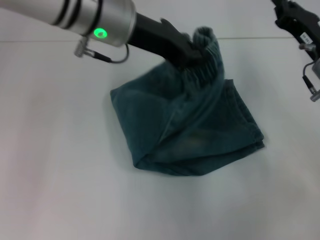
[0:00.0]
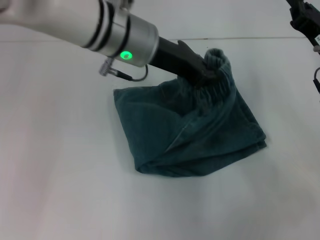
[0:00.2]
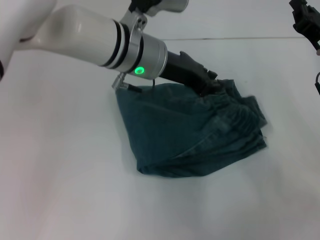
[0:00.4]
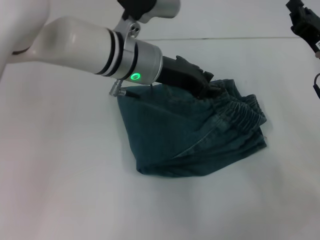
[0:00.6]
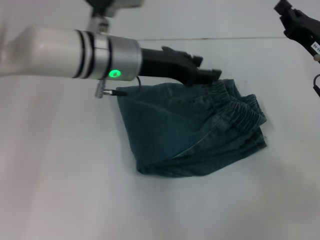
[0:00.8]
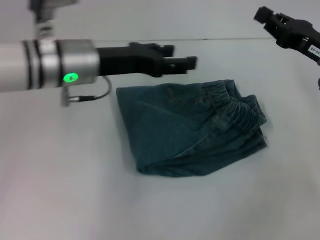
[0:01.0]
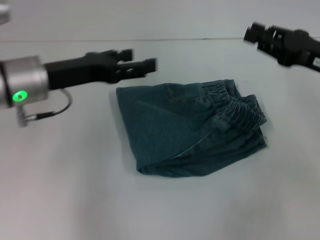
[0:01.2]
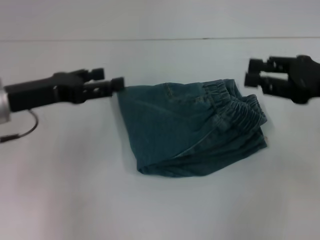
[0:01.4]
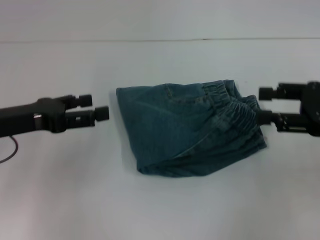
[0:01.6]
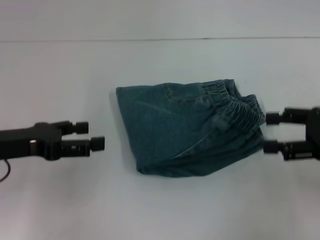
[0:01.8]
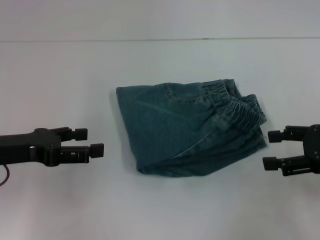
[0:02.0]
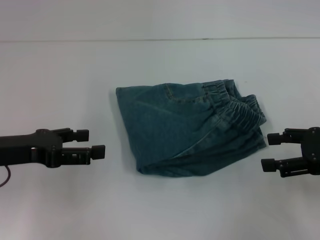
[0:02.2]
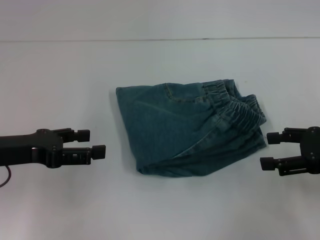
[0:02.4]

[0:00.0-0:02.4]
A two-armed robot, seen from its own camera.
Step, 0:00.0 to 0:01.6: Fold to the right with your left hand.
0:00.0 to 0:01.2: The right gripper moves approximately 5 cm; the left gripper shifts approximately 15 cm to the left and downward, and opens its fingers.
0:01.2 to 0:02.4: The left gripper travels to the left and backward by roughly 10 cm, while the right gripper shifts some 5 cm backward, and opens its fingers.

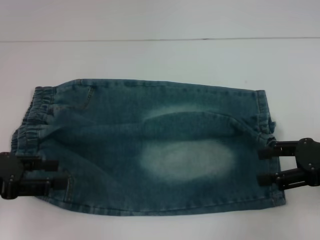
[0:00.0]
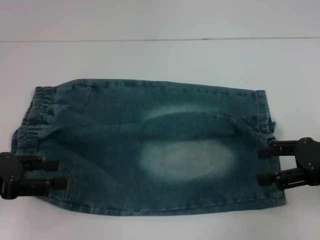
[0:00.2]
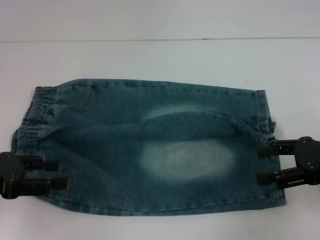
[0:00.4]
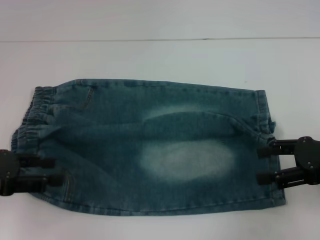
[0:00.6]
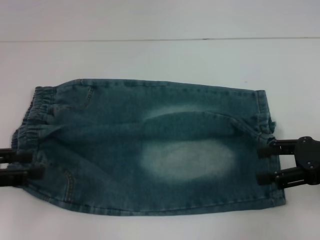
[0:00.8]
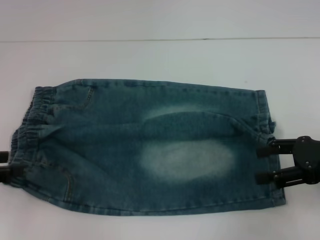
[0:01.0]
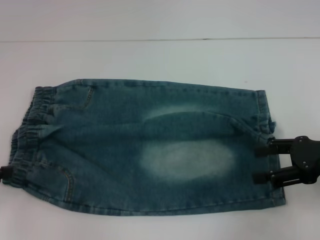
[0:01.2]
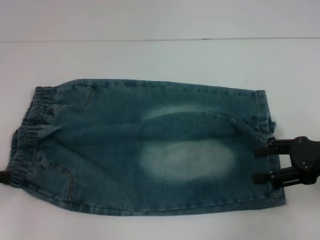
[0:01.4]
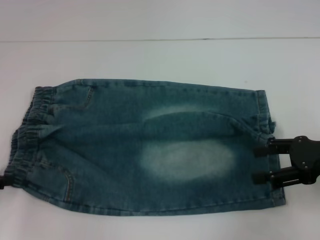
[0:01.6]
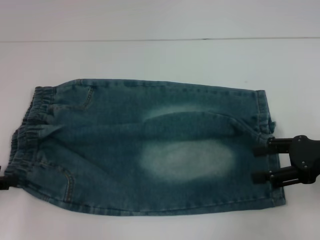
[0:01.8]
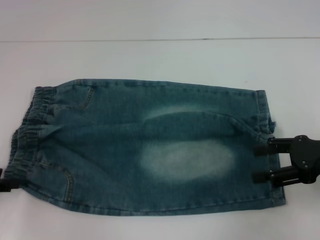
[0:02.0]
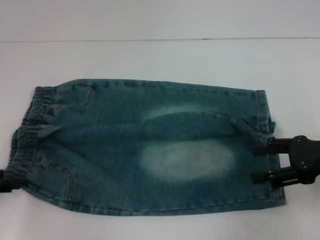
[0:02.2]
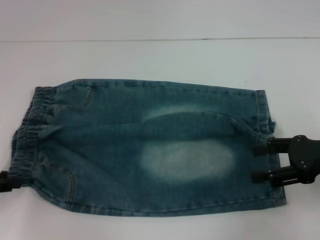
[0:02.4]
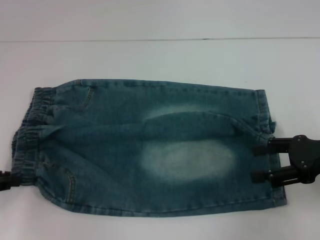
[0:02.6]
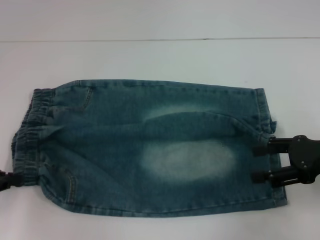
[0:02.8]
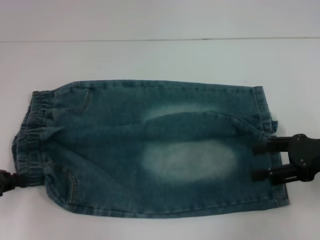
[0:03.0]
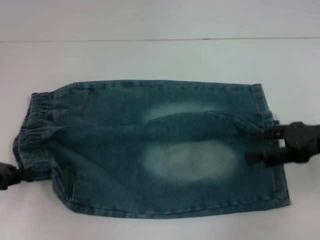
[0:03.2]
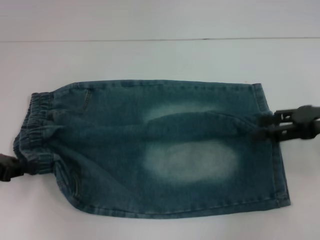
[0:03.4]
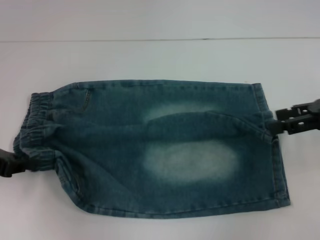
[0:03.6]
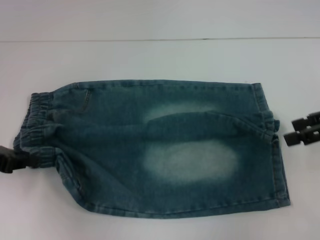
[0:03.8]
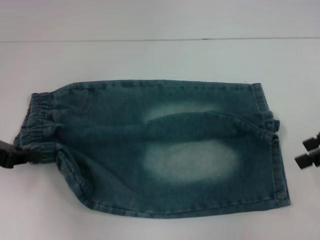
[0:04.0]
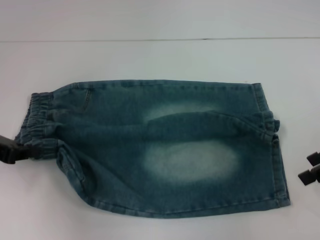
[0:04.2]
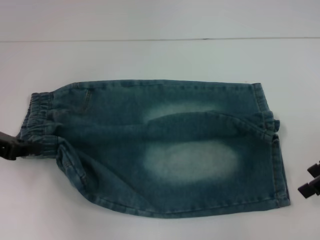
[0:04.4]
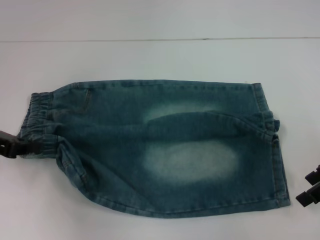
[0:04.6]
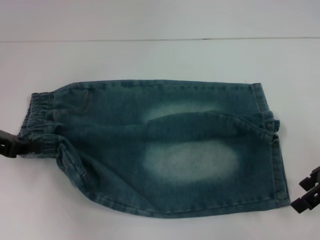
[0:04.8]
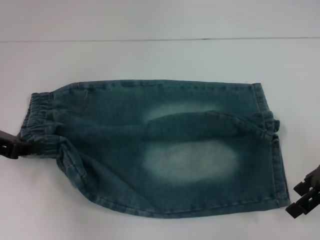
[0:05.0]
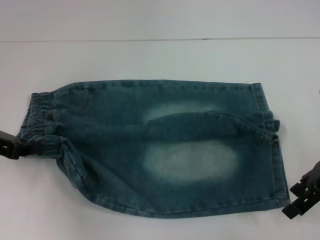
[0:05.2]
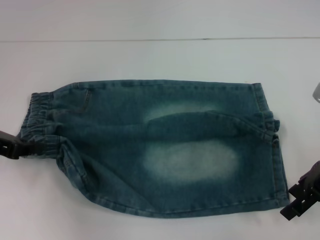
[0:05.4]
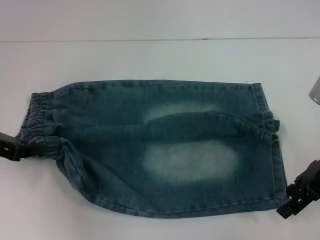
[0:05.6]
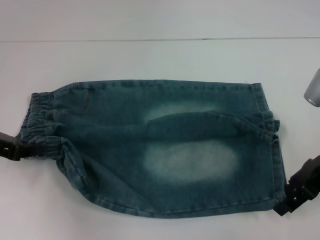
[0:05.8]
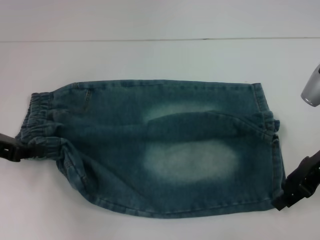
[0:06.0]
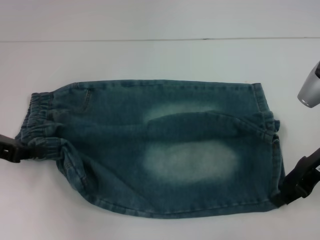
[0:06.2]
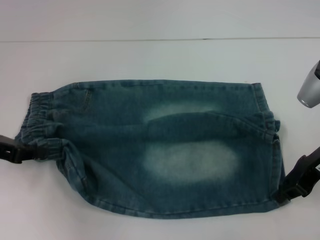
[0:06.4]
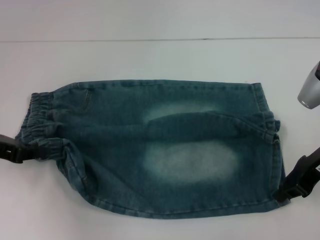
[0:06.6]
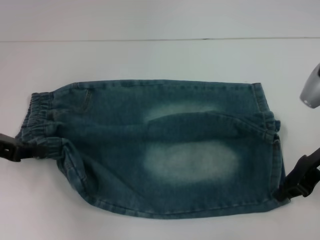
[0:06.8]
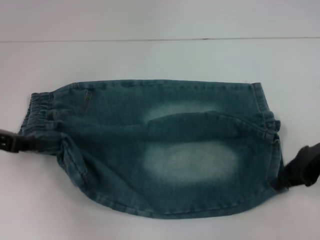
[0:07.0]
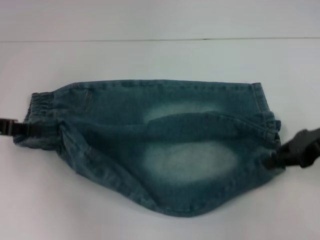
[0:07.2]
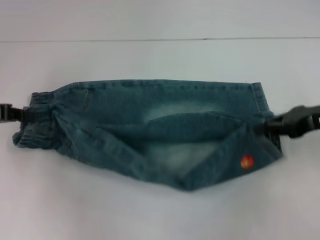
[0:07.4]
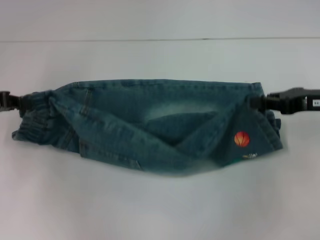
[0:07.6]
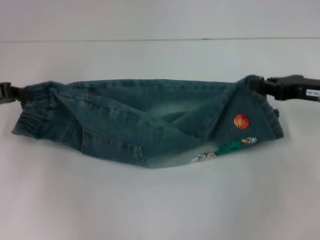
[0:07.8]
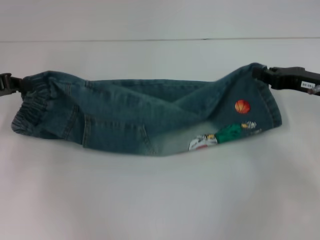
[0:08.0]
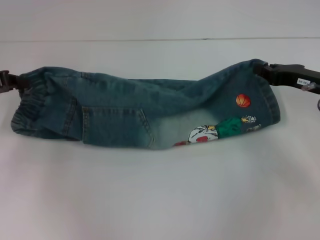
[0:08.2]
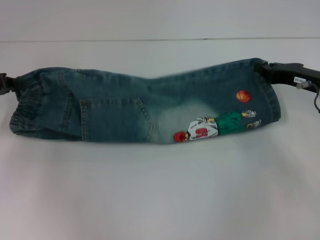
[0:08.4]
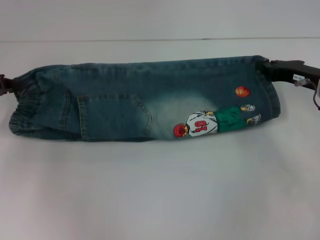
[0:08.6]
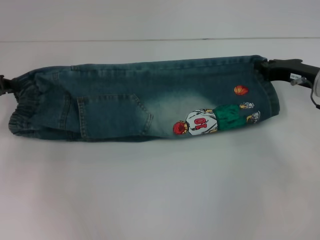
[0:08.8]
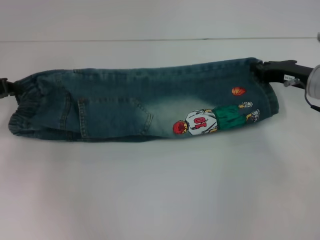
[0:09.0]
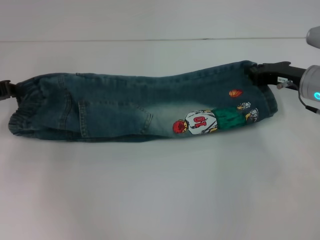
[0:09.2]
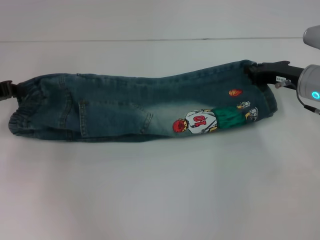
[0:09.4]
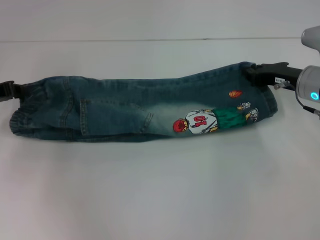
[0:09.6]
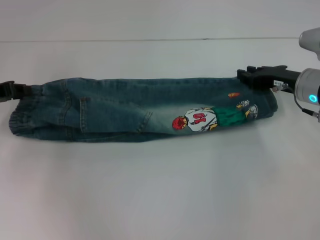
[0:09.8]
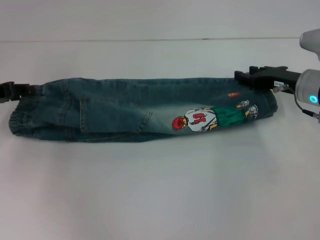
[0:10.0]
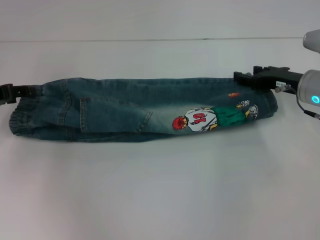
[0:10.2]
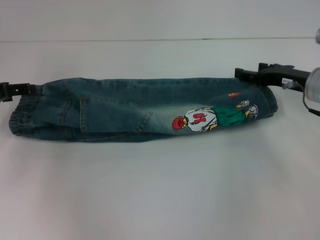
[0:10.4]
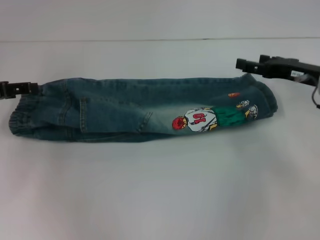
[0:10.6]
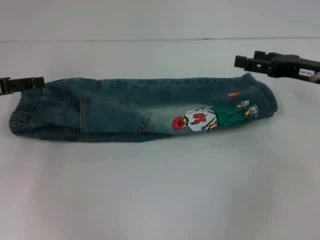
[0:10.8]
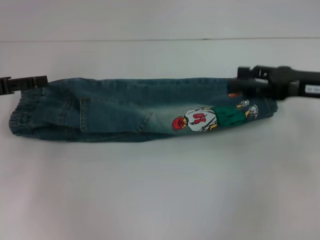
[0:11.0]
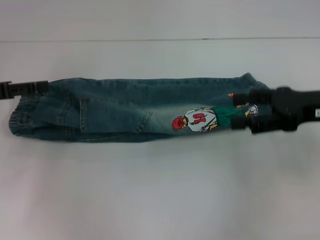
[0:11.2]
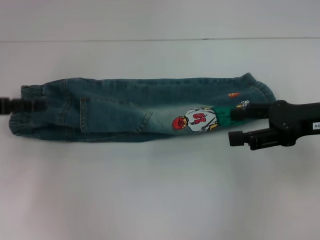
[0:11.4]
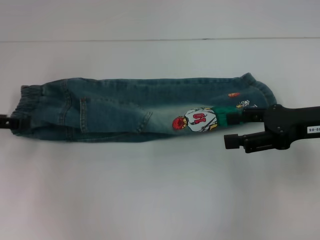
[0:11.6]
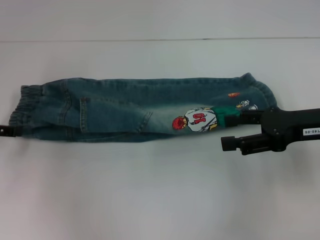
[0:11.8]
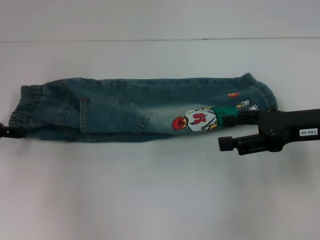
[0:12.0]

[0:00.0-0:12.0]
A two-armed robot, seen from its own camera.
Step, 0:00.0 to 0:02.8: Hold the lower left waistband with your left hand.
Step, 0:03.0 to 0:06.6: Grab the lower right pant leg with your right hand.
Step, 0:07.0 to 0:09.8: Fold upward with your right hand.
0:00.0 to 0:01.6: The left gripper moves to the left, roughly 5 cm.
0:01.6 to 0:03.0: The left gripper closes its fingers.
0:03.0 to 0:04.4: The left gripper changes place by approximately 5 cm, while the right gripper ends up approximately 5 cm from where it was.
0:04.4 to 0:06.0: The right gripper shifts approximately 5 cm to the left.
0:06.0 to 0:07.6: The right gripper closes.
0:07.6 to 0:09.0: The right gripper changes place by roughly 5 cm.
0:09.0 to 0:10.4: The right gripper opens its fingers. Meanwhile the left gripper opens its fingers.
0:10.4 to 0:12.0: The right gripper moves backward, about 10 cm.

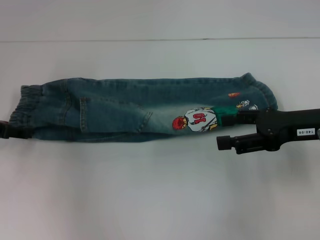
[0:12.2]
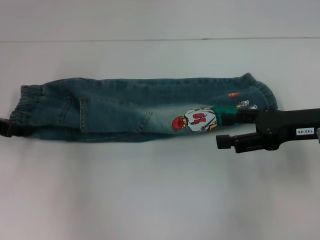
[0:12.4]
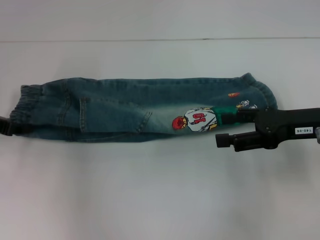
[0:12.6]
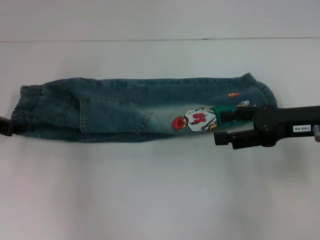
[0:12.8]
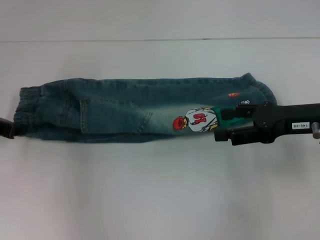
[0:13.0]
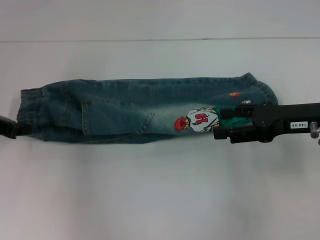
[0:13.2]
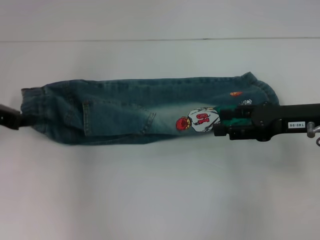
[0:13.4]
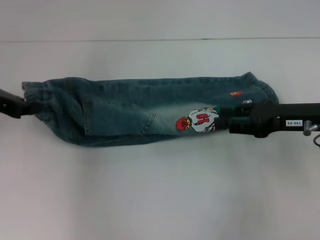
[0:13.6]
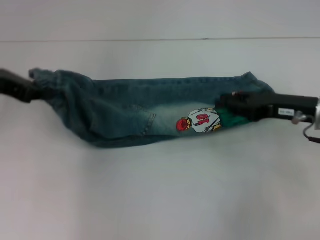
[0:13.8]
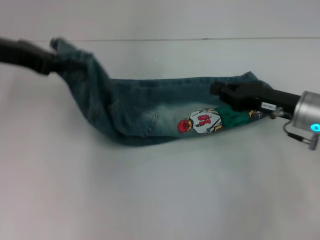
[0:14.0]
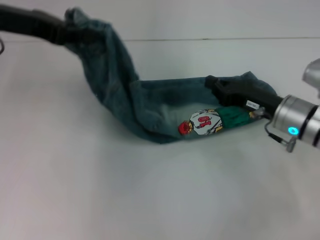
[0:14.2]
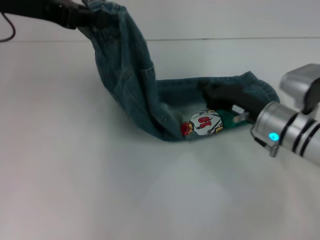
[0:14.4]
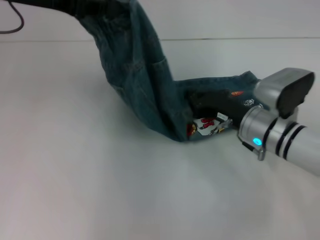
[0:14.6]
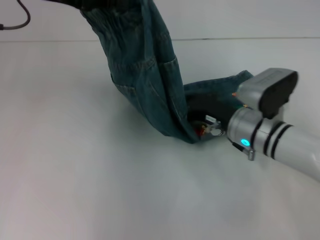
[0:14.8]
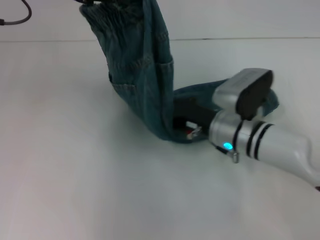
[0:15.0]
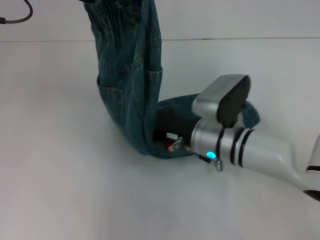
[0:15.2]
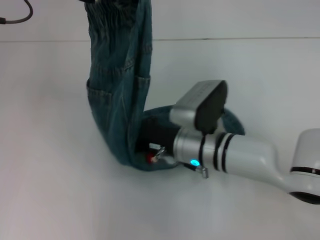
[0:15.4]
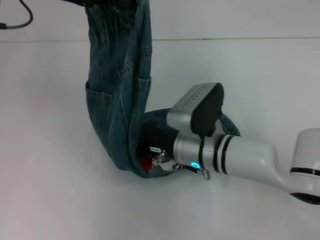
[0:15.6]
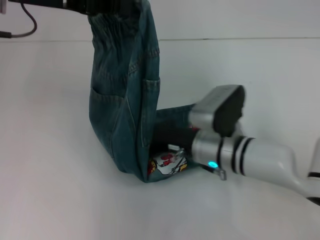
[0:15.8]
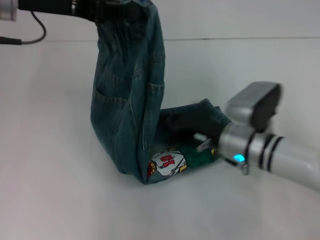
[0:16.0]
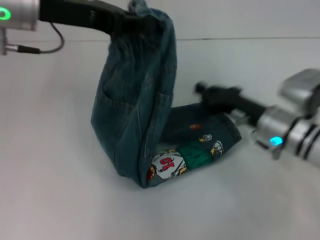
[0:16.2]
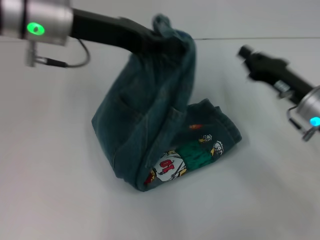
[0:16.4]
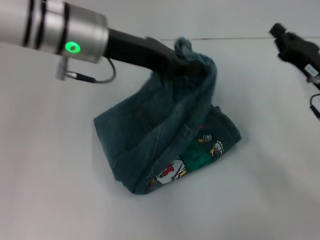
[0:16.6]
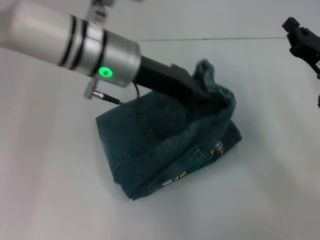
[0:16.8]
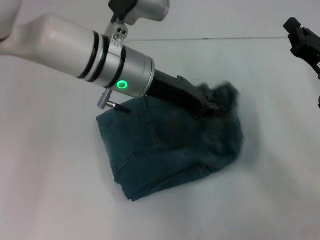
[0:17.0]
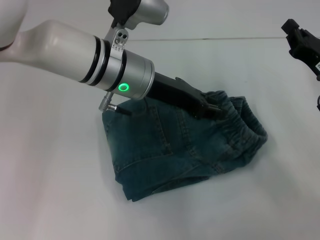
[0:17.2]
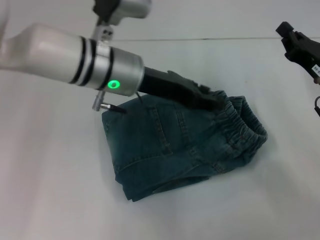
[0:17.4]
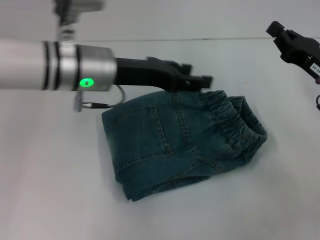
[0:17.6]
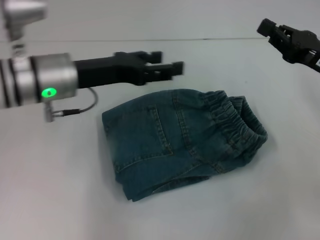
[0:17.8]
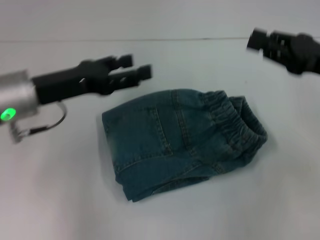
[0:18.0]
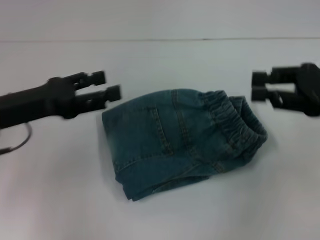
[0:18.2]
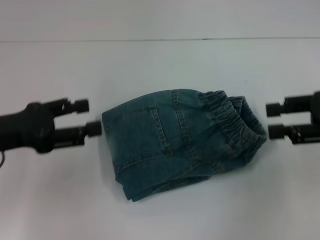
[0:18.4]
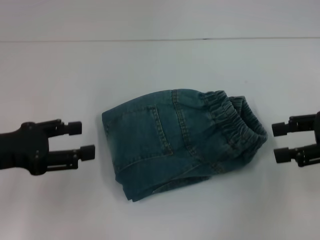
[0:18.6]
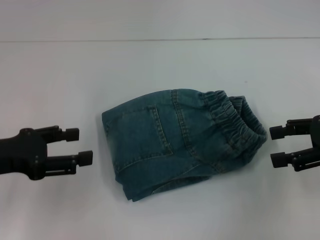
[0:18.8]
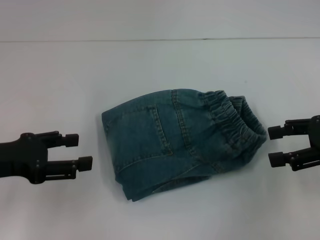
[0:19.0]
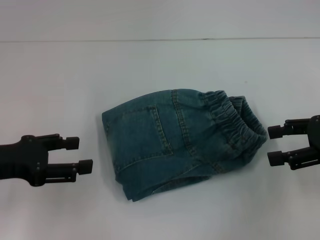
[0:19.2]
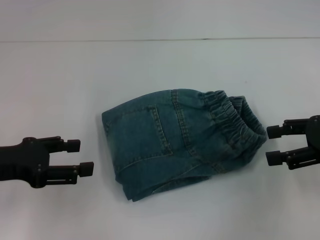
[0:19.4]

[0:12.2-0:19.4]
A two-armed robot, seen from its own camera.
Step, 0:13.4 to 0:15.4: Press the middle of the pants with your right hand.
Step, 0:15.6 to 0:17.2: Fold to the right with your left hand.
0:12.2 to 0:13.6: The left gripper is displaced upward by roughly 5 cm, and closes.
0:13.6 to 0:15.0: The right gripper is displaced to the left and downward by about 15 cm, and closes; the left gripper shifts approximately 15 cm upward and to the right.
0:15.0 to 0:16.6: The left gripper moves to the right and downward, some 10 cm. The right gripper shifts some 15 cm to the right.
0:16.6 to 0:18.0: The left gripper goes about 15 cm to the left, downward and backward, and opens up; the right gripper moves upward, about 10 cm.
0:18.0 to 0:19.4: The left gripper heads to the left and backward, covering roughly 10 cm. Meanwhile the right gripper opens up.
